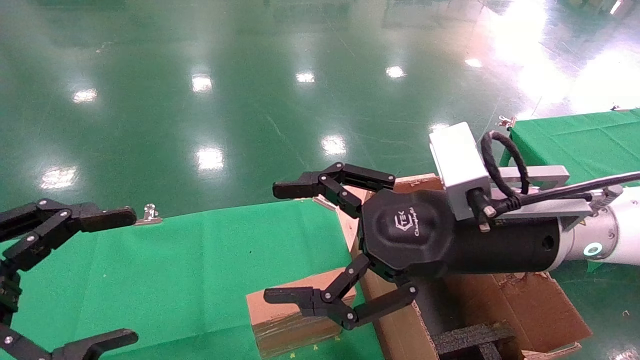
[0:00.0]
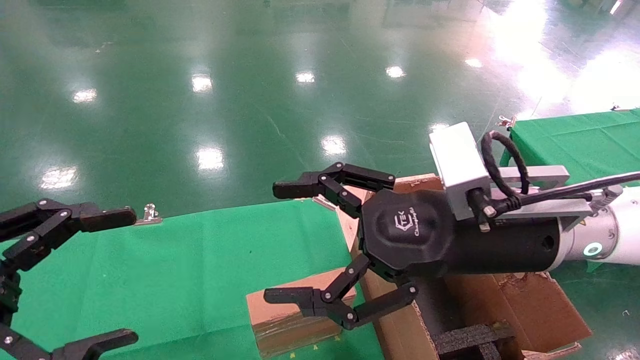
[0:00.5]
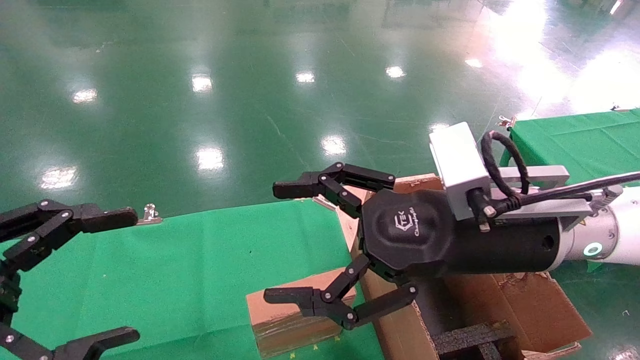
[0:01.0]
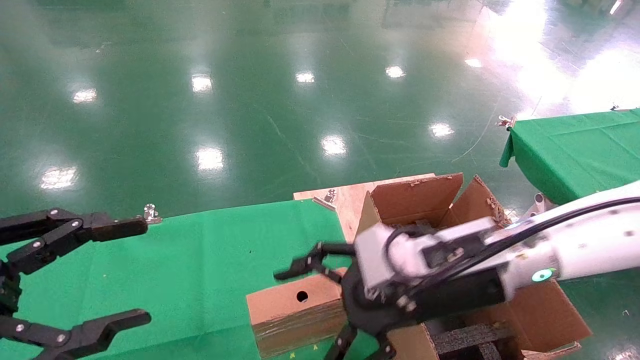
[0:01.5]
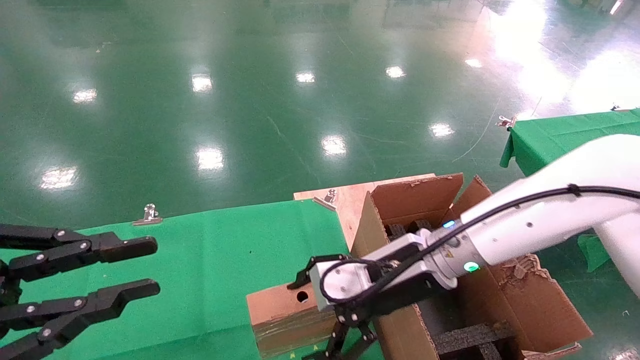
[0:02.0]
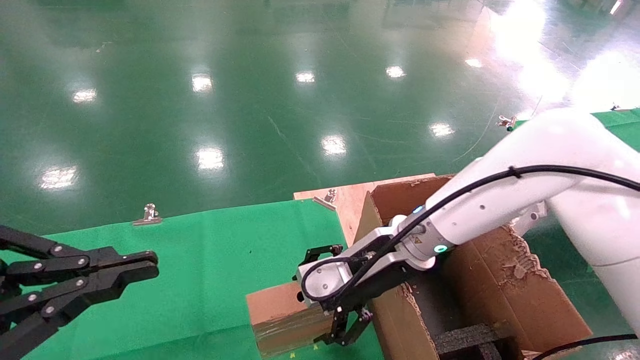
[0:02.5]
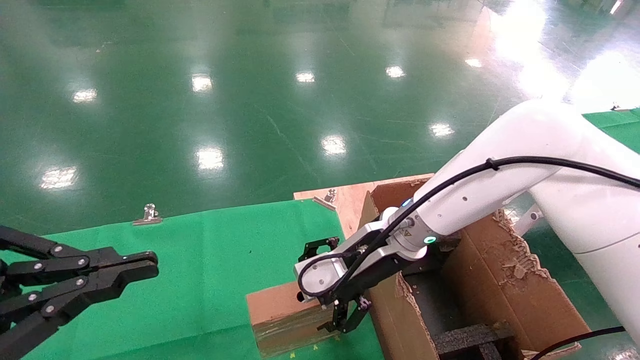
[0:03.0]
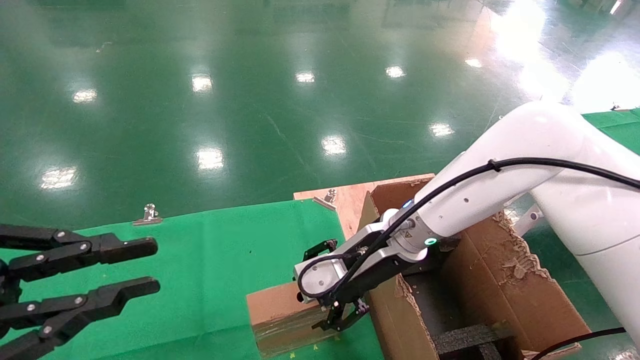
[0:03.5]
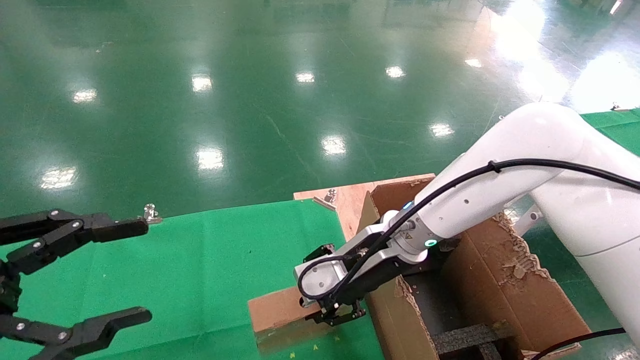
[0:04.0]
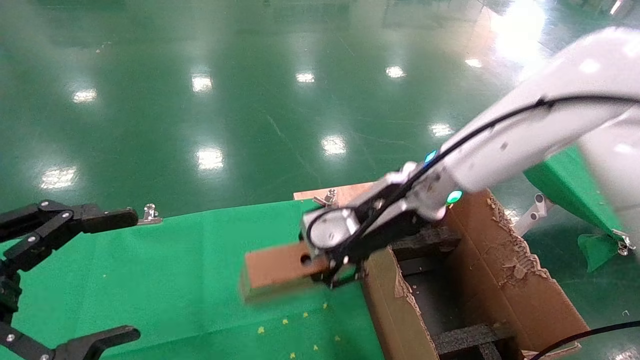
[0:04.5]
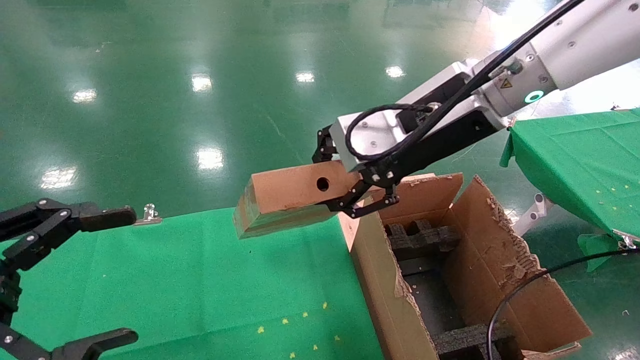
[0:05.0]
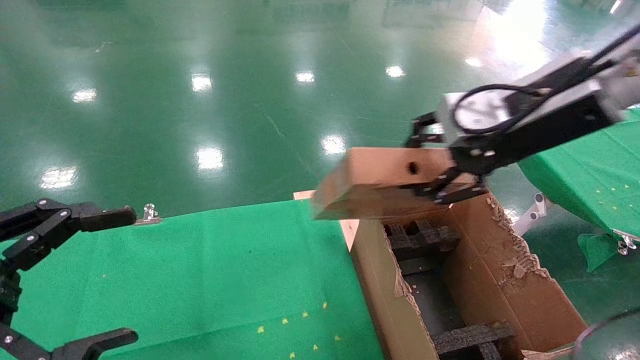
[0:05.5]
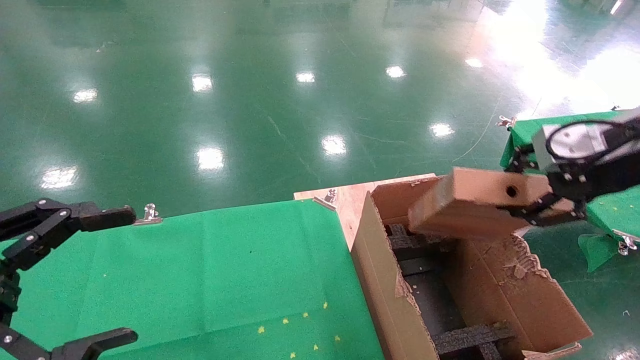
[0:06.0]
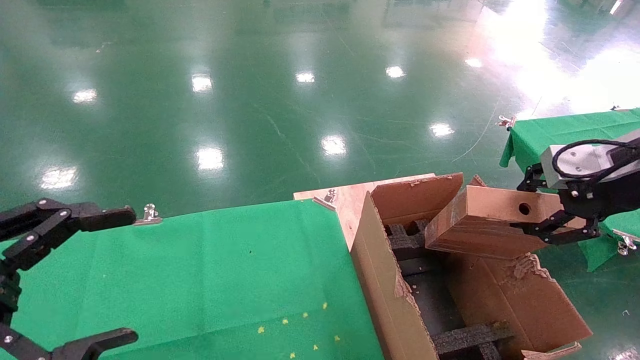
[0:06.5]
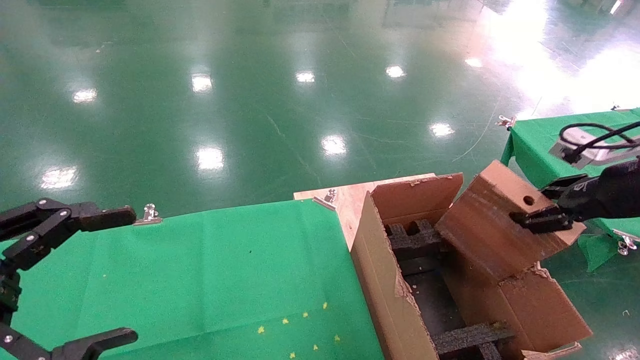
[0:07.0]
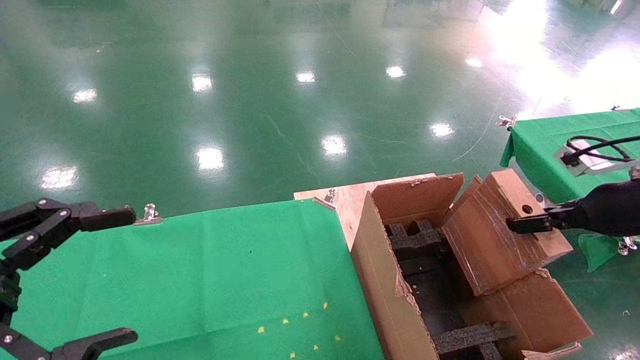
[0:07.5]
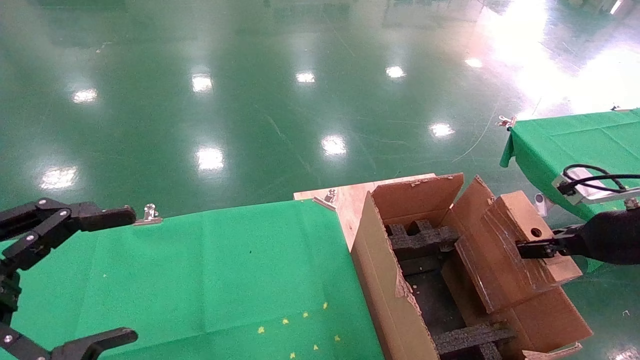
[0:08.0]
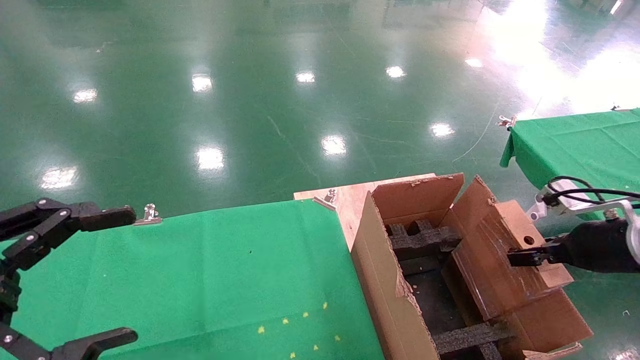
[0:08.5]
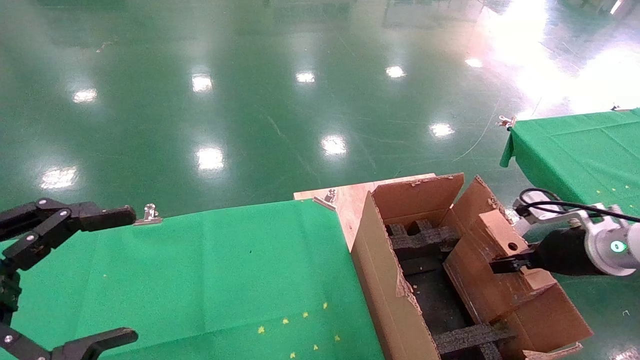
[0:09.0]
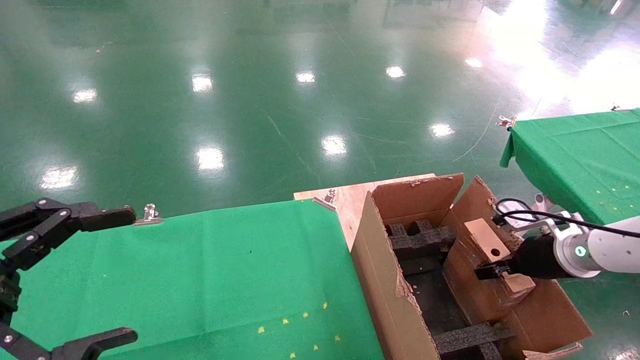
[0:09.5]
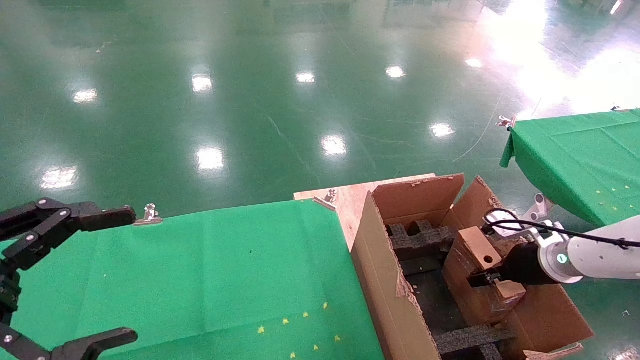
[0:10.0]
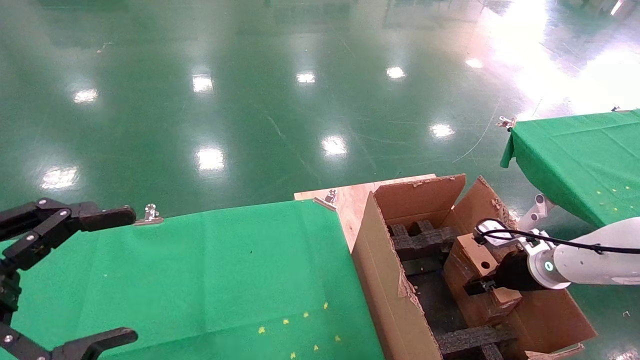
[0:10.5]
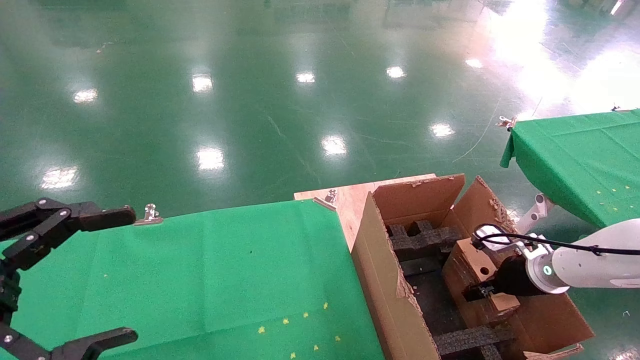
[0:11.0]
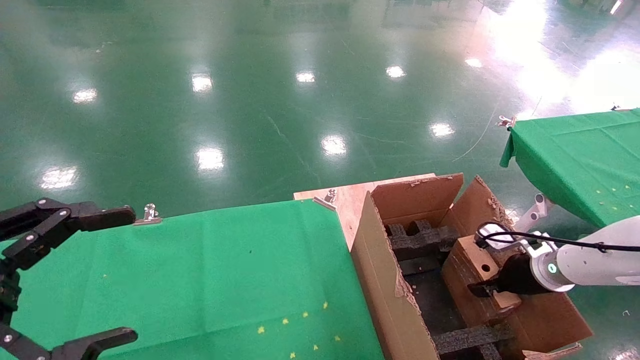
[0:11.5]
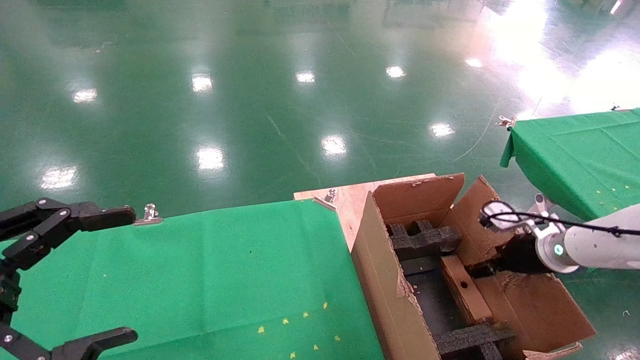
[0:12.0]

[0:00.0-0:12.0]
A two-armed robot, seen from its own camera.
Task of the whole recording: using a robotic arm to pick up a cardboard box and palace it the carton.
Step, 0:01.5 to 0:03.5: Pick up the mouse and the power cord paper box.
Step, 0:04.0 to 0:11.5: Place the mouse and the power cord paper box into the container.
0:00.0 to 0:02.0: The right gripper shifts roughly 10 cm forward and downward; the left gripper closes its fingers.
0:02.0 to 0:04.0: The right gripper closes up.
0:04.0 to 0:06.0: The right gripper goes about 30 cm to the right and upward, while the left gripper opens up.
0:06.0 to 0:08.0: The right gripper shifts approximately 15 cm downward and to the right.
0:08.0 to 0:10.0: The right gripper goes roughly 15 cm downward and forward.
0:10.0 to 0:12.0: The right gripper opens its fingers.

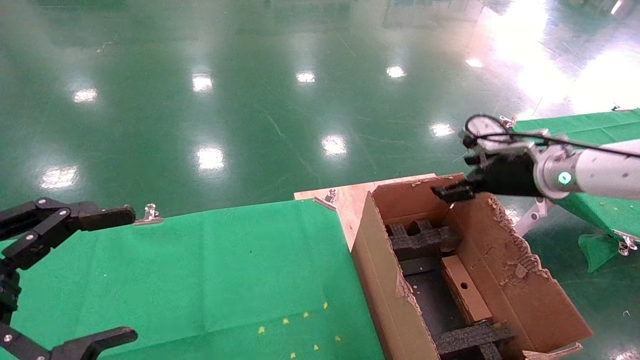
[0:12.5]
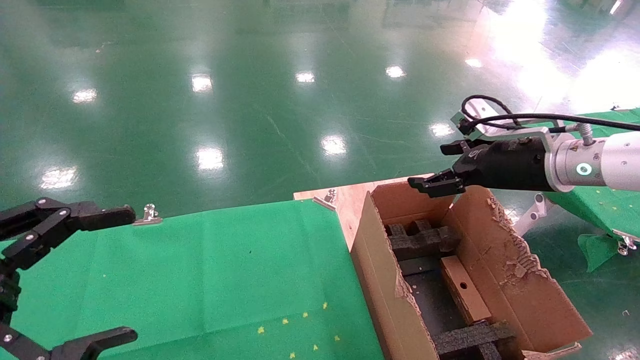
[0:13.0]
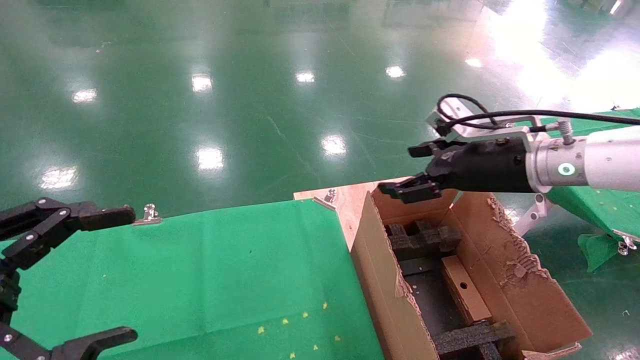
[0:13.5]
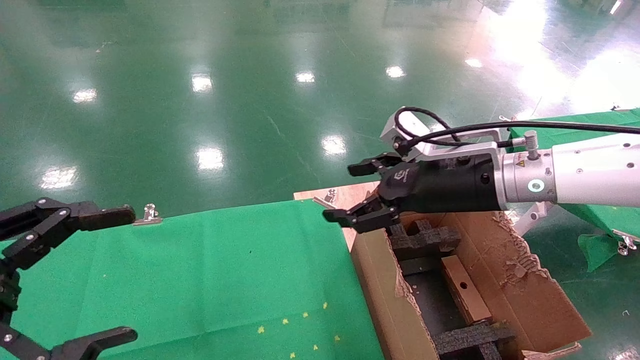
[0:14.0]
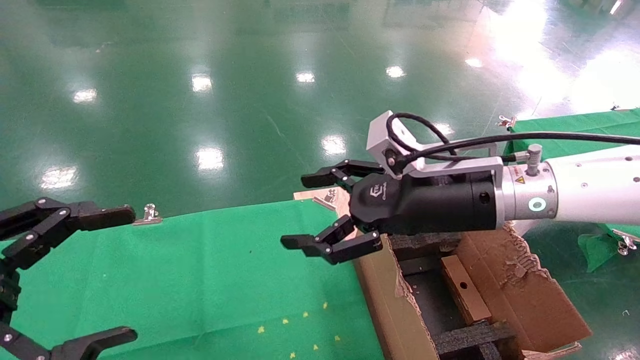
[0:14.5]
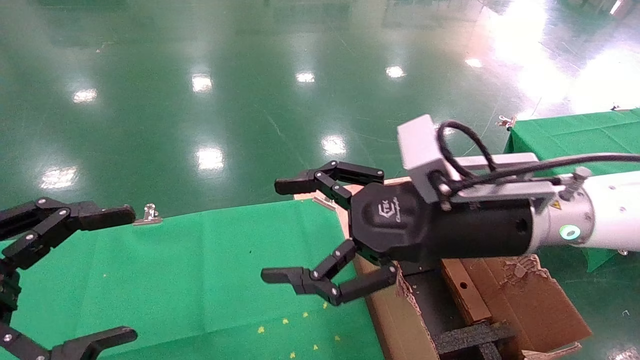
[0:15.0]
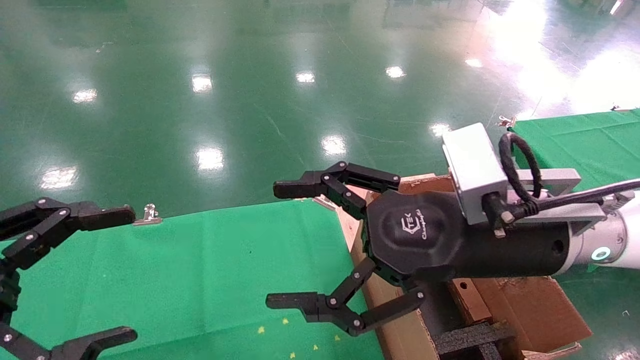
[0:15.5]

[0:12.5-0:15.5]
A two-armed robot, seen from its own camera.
Task of the whole recording: using a robotic arm to pick up a cardboard box and palace it the carton.
0:12.5 to 0:14.0: The right gripper shifts about 15 cm to the left.
0:14.0 to 0:15.5: The right gripper heads backward, covering about 10 cm.

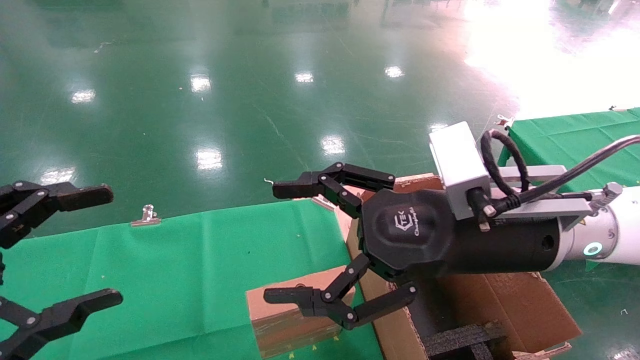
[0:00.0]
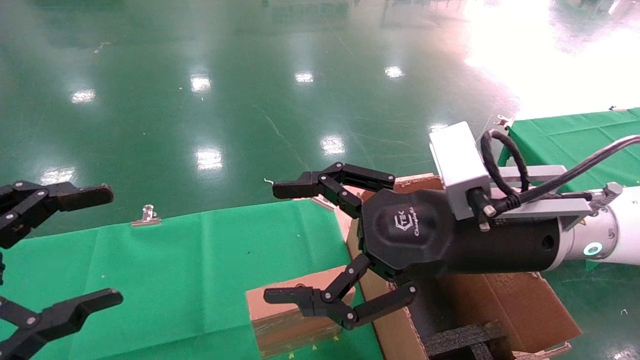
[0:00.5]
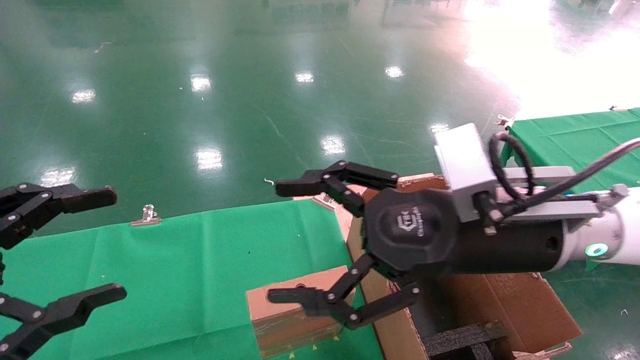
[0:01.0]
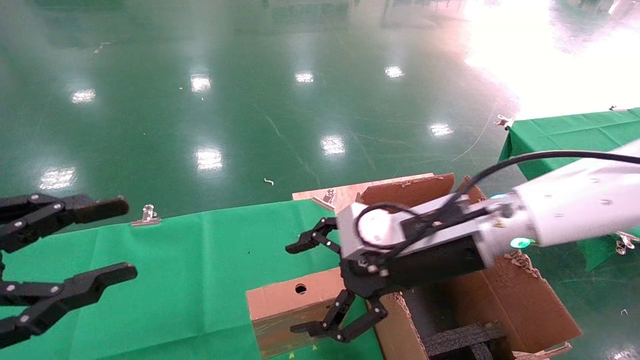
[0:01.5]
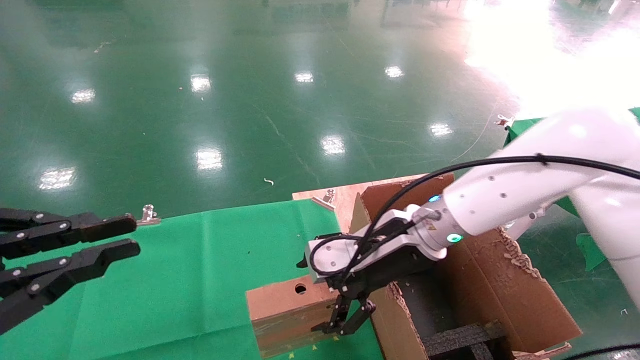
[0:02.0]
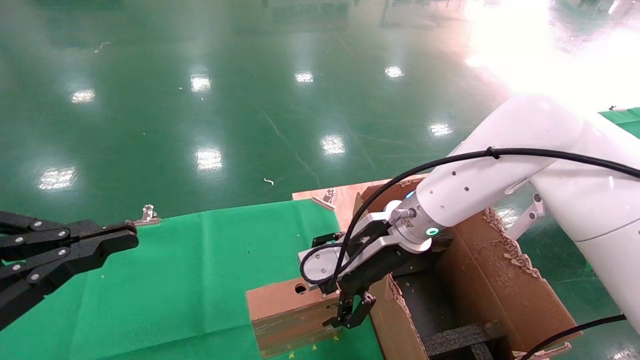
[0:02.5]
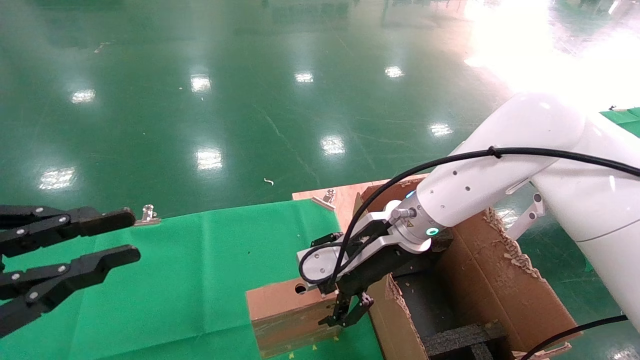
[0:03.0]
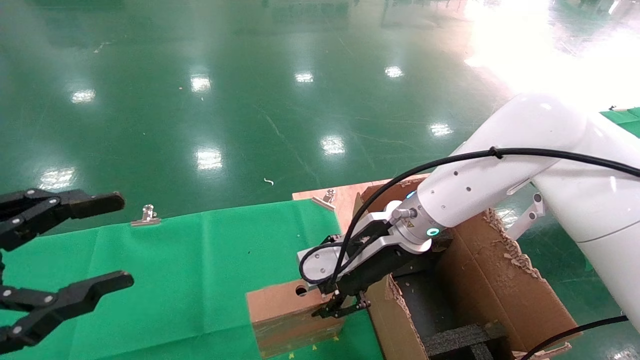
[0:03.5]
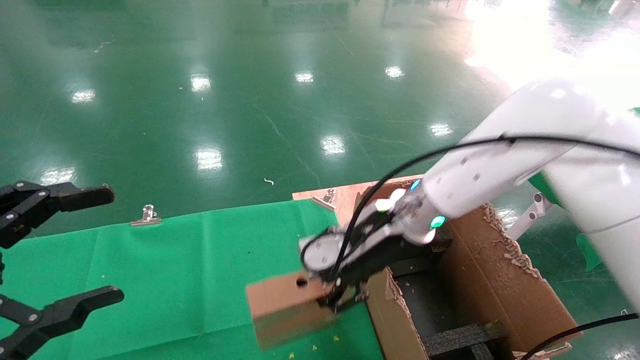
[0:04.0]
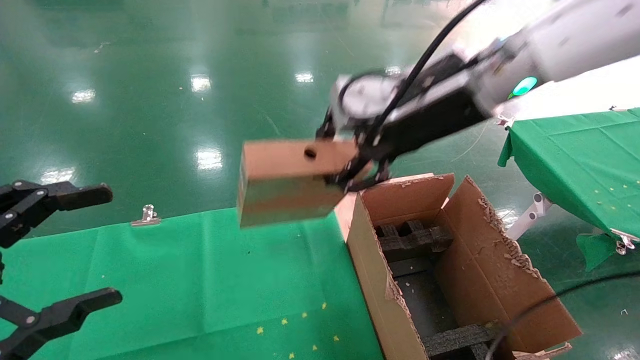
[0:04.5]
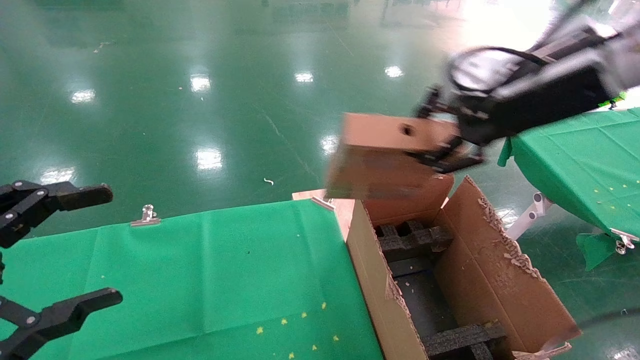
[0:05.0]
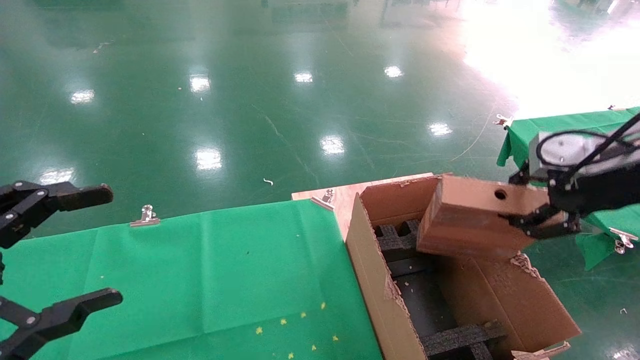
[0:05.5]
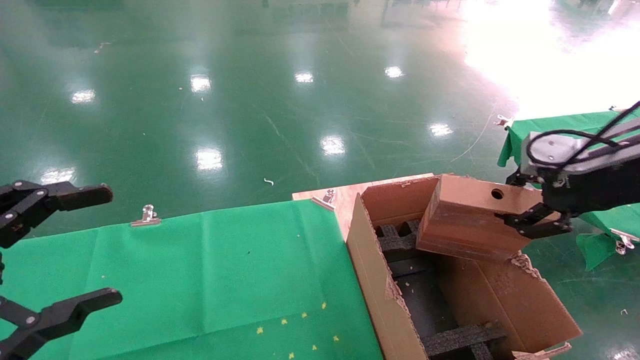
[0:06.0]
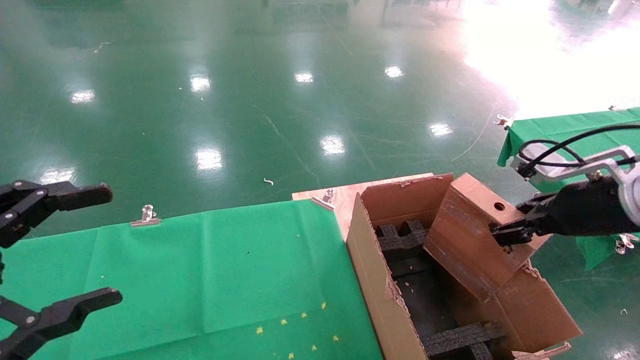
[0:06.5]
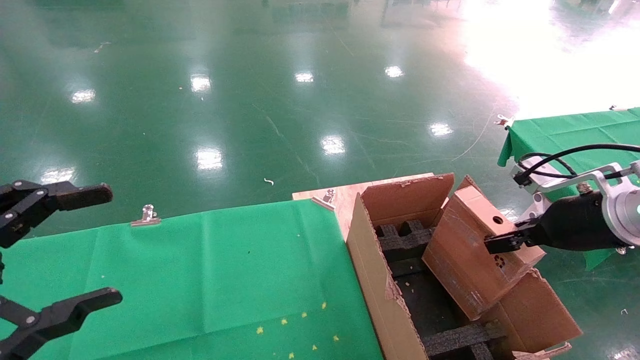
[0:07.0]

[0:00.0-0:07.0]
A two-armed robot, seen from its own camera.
Task of the whole recording: using a robotic arm to pick up a cardboard box and palace it the carton.
Step, 0:01.5 to 0:03.5: Pick up the mouse and the power cord paper box.
0:00.0 to 0:02.0: The right gripper moves forward and downward, approximately 10 cm. Meanwhile the left gripper closes up.
0:02.0 to 0:03.5: The right gripper closes up.
0:03.5 to 0:05.0: The left gripper opens. The right gripper heads upward, to the right and backward, covering some 25 cm, and closes up.
0:05.0 to 0:07.0: The right gripper shifts roughly 20 cm downward and to the right.
